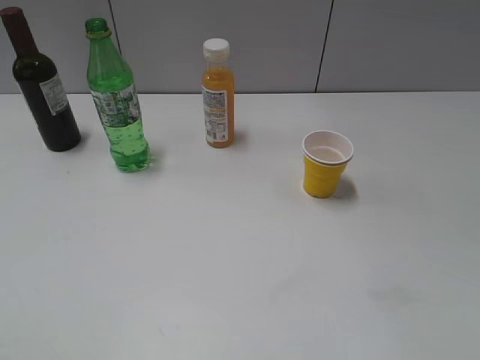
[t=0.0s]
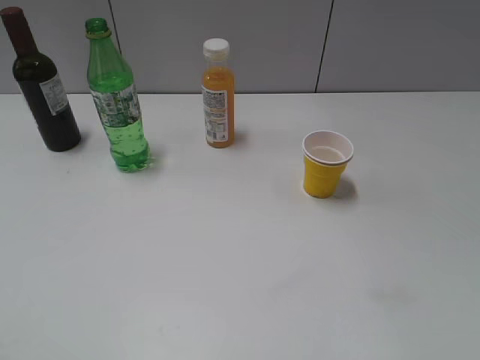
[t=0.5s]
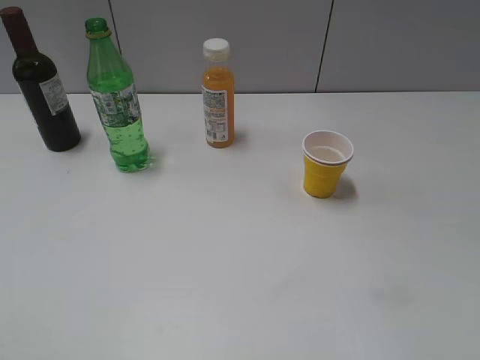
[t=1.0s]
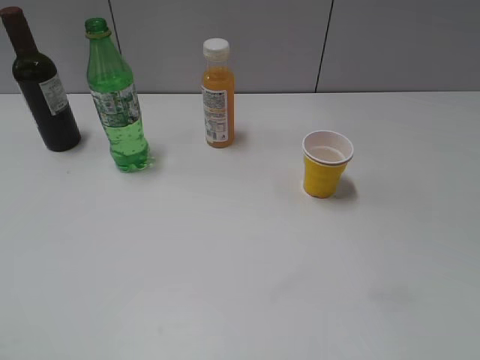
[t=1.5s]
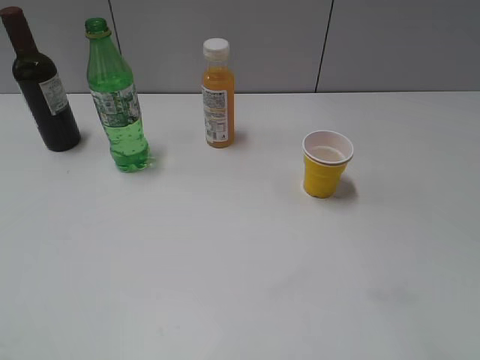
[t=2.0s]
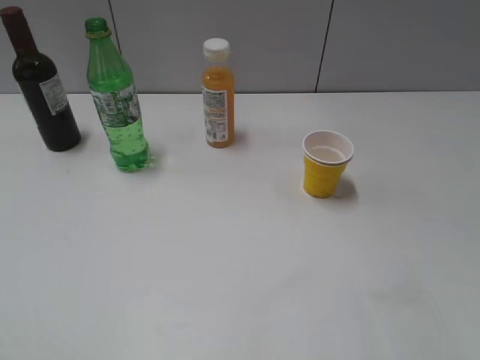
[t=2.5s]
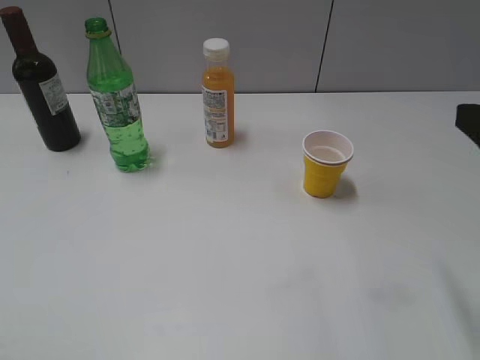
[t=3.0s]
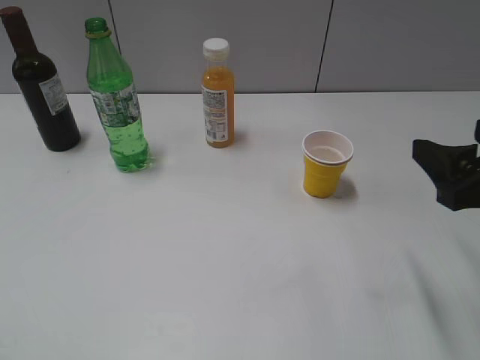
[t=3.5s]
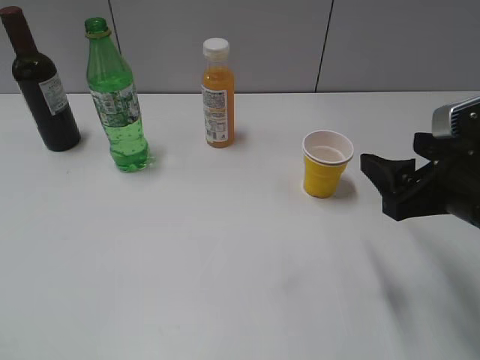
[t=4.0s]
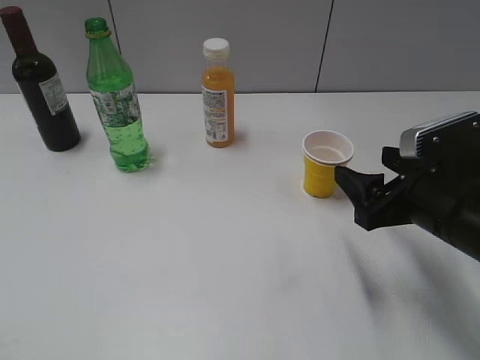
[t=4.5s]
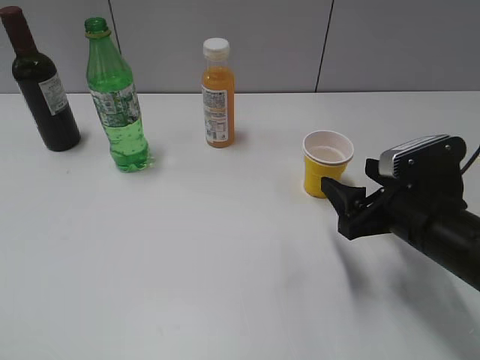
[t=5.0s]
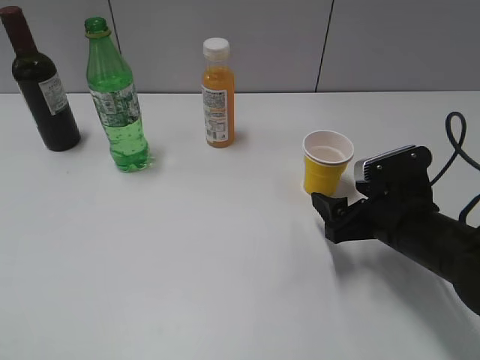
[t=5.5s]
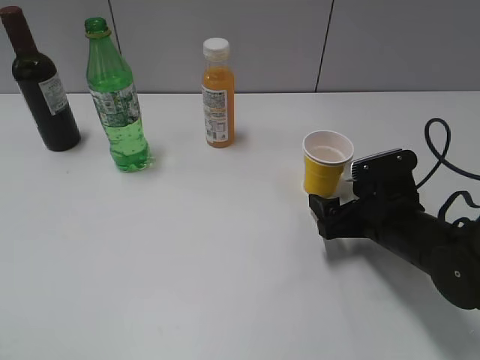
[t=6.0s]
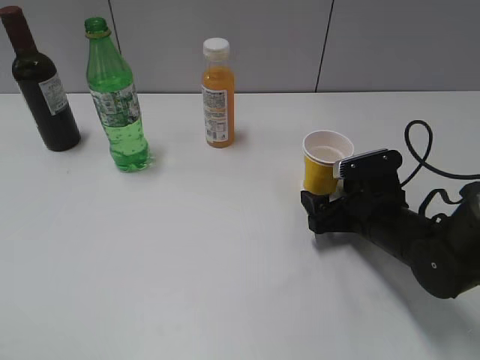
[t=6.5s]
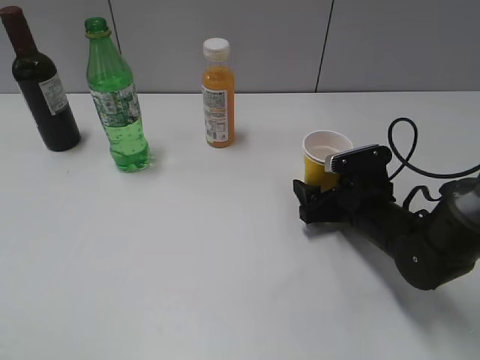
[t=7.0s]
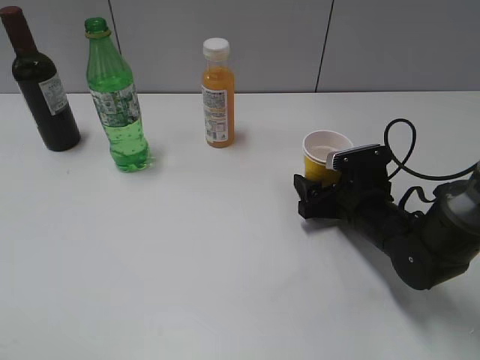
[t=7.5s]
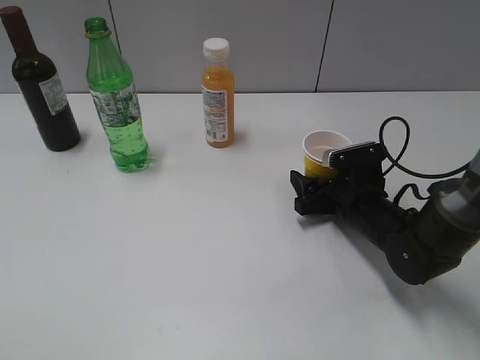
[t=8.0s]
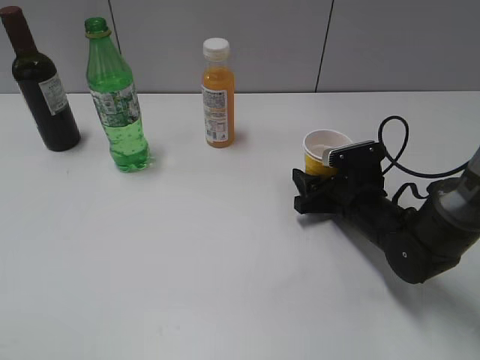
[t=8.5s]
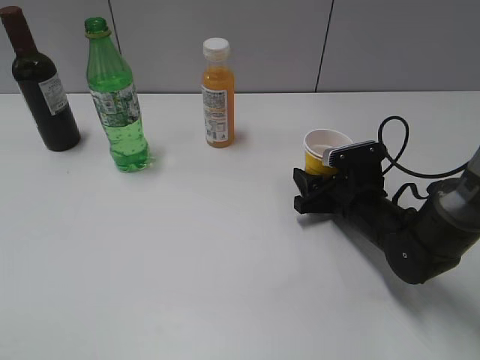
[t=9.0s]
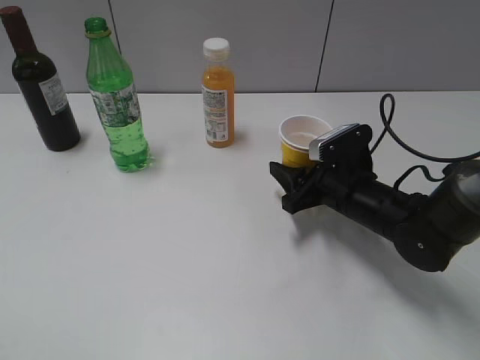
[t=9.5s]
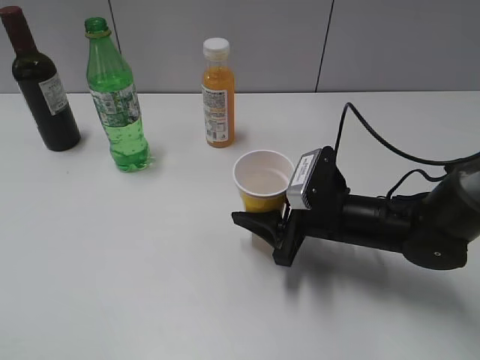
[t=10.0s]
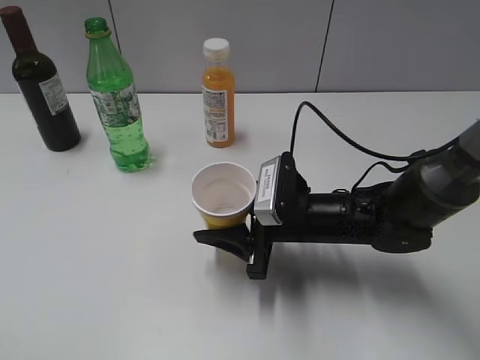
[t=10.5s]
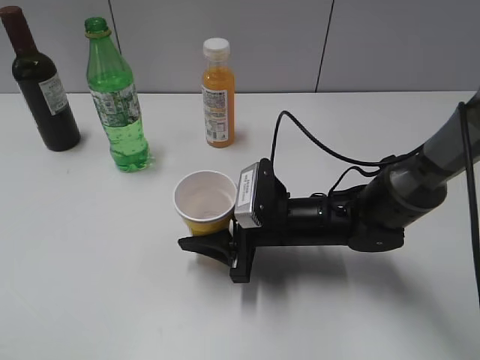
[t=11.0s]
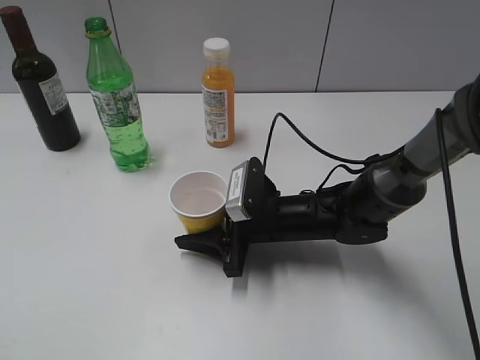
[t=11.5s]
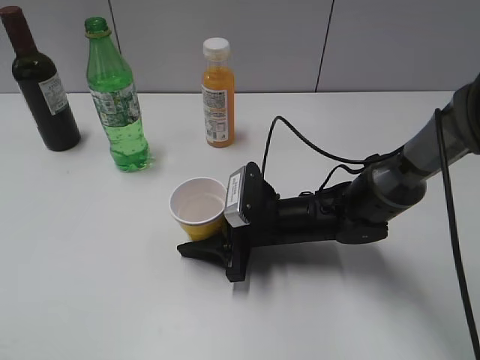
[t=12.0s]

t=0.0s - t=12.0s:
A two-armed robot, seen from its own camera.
Step, t=1.0s - t=9.0s: Grasp the yellow paper cup with right gripper.
t=2.0s - t=4.0s: The right gripper is displaced forward, downward and to the left by approximately 20 cm.
t=4.0s - t=6.0s: The right gripper is displaced downward and forward by about 15 cm.
t=6.0s - t=8.0s: The right gripper travels forward by approximately 5 cm, and closes its fingers.
t=8.0s - t=10.0s: The right gripper ends up about 5 cm from where it was, and closes up.
t=10.0s - t=12.0s: The right gripper shifts roughly 5 cm to the left.

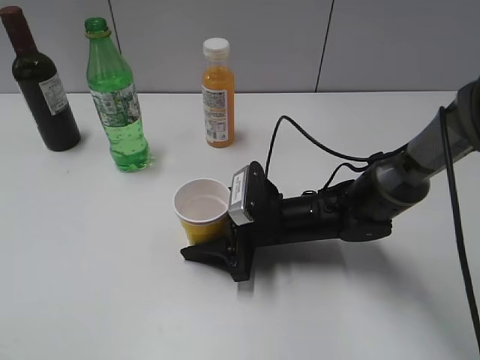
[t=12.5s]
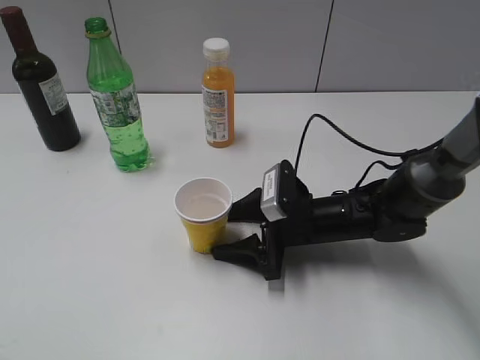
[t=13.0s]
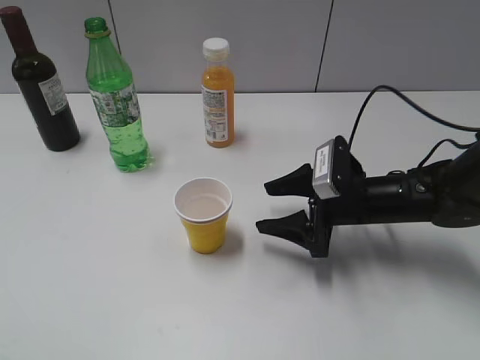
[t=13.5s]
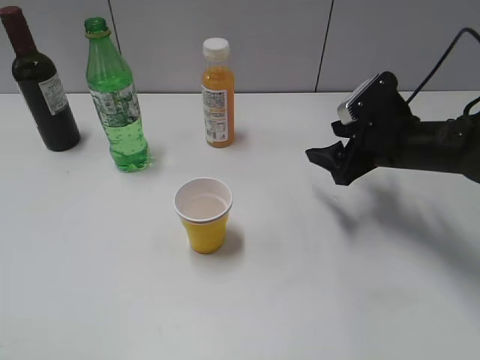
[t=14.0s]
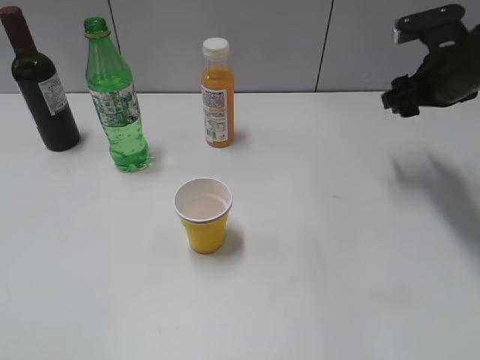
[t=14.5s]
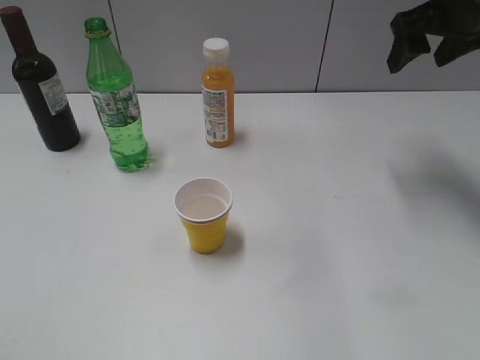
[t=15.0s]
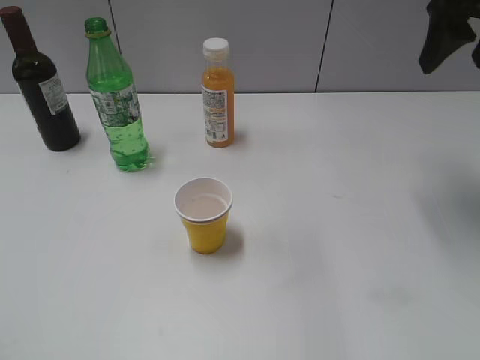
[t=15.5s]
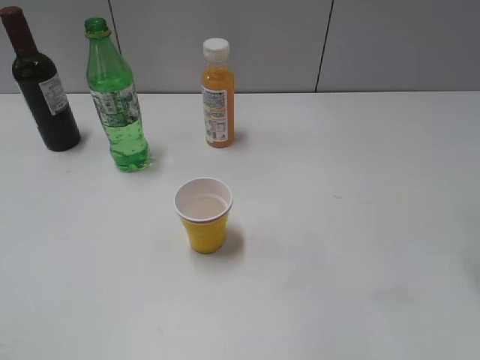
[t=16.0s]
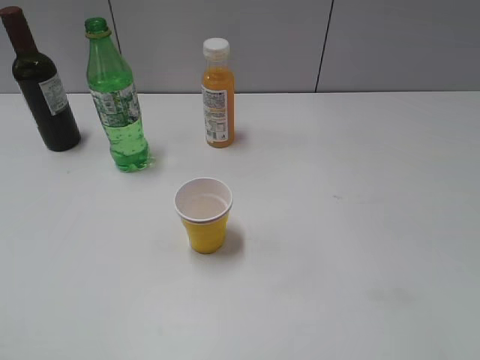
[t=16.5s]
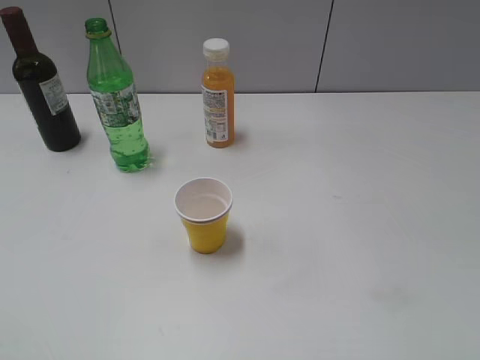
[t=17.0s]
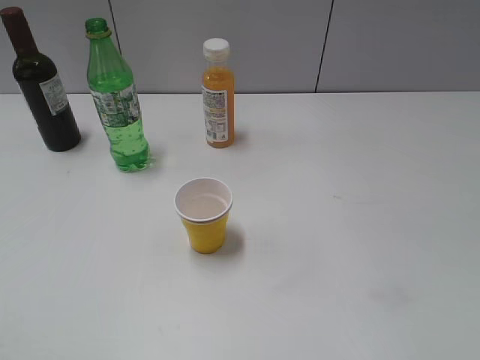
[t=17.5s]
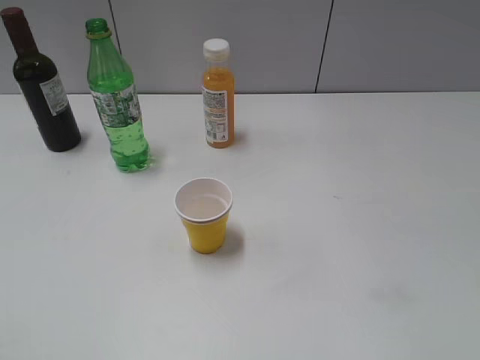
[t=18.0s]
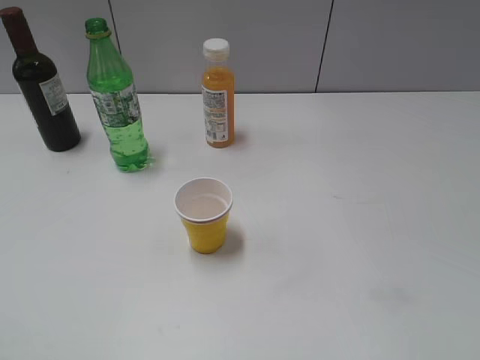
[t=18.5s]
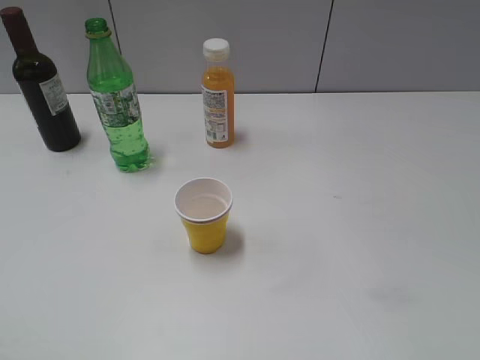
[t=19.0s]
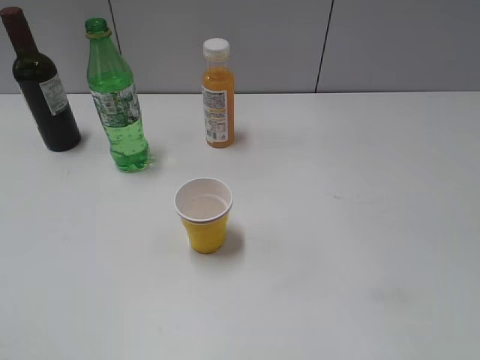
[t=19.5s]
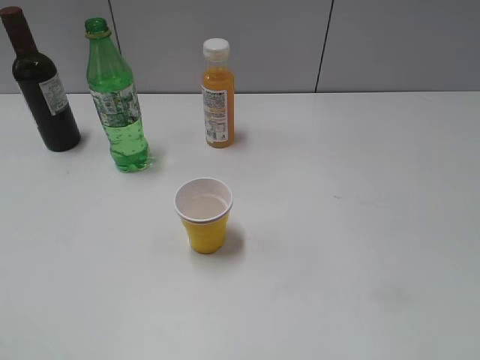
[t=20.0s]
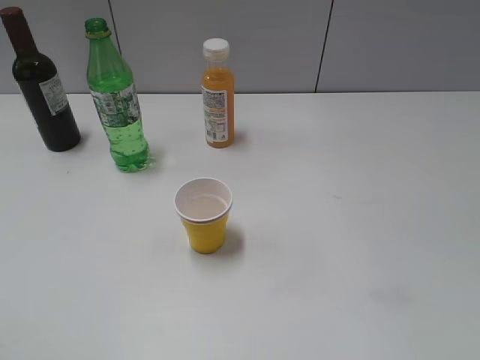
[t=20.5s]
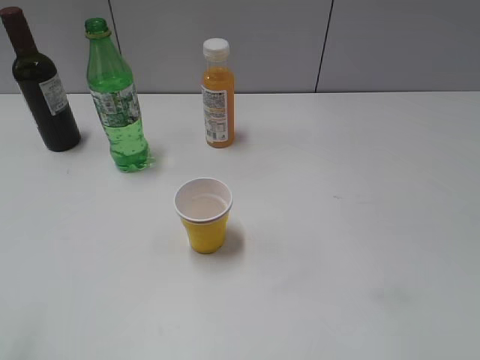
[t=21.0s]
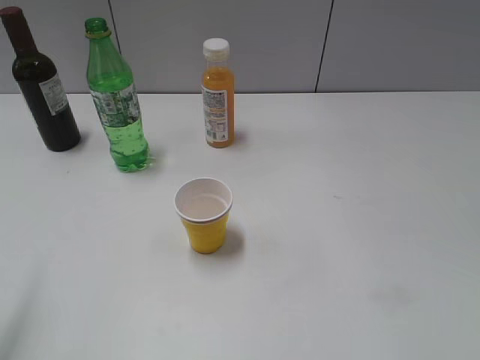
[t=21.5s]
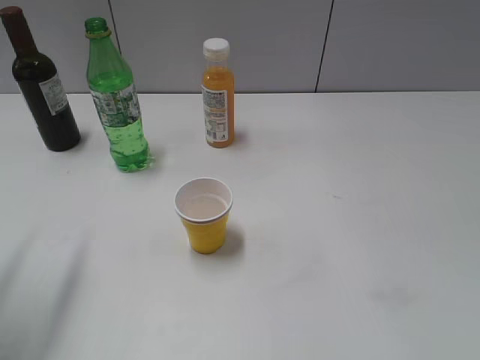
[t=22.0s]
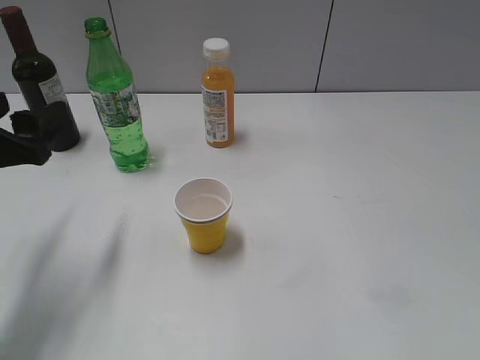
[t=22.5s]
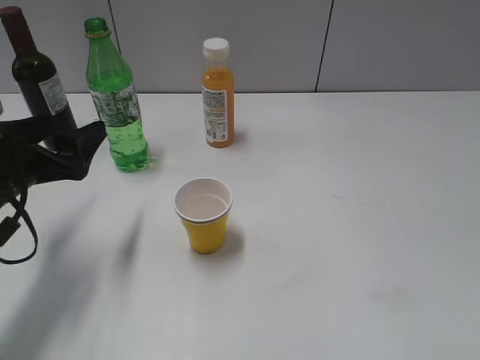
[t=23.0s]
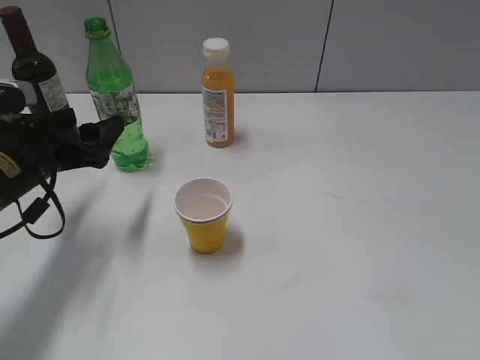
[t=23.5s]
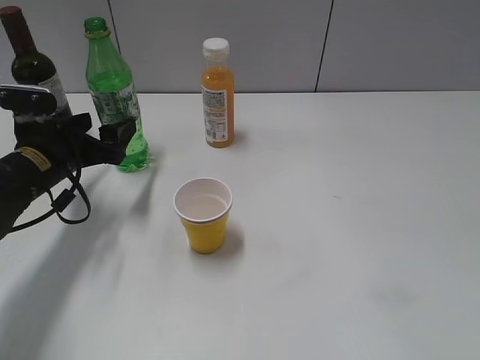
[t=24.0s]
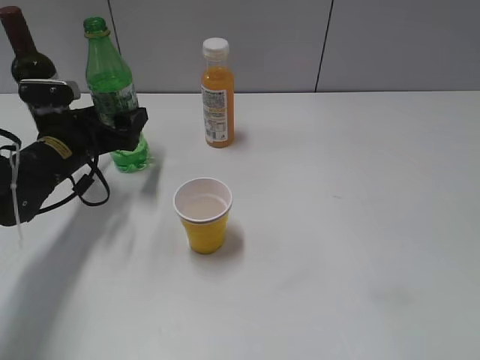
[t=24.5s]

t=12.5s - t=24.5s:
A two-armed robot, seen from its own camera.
t=12.5s - t=14.5s: The right gripper moves to the right, upward and forward, about 30 cm.
t=14.5s - t=16.5s: The right gripper goes about 25 cm backward.
t=20.5s - t=22.5s: The left gripper goes some 25 cm forward and downward.
t=22.5s - t=24.5s: The left gripper goes some 15 cm forward and downward.

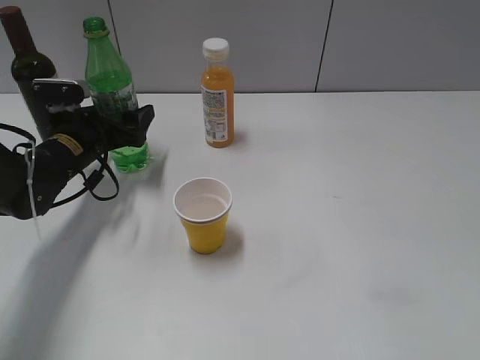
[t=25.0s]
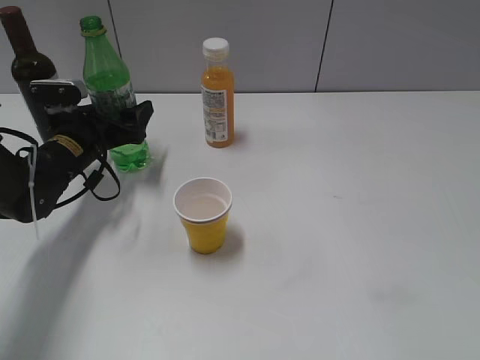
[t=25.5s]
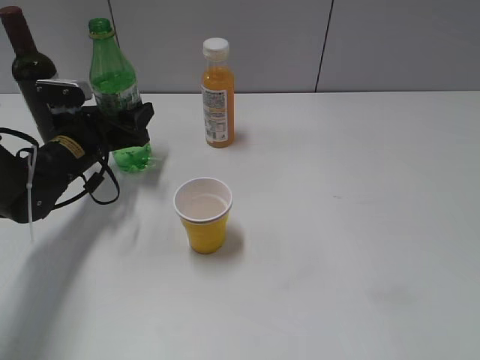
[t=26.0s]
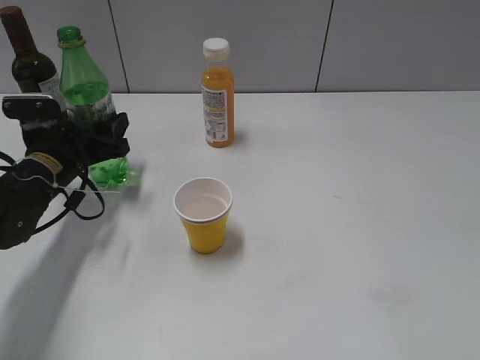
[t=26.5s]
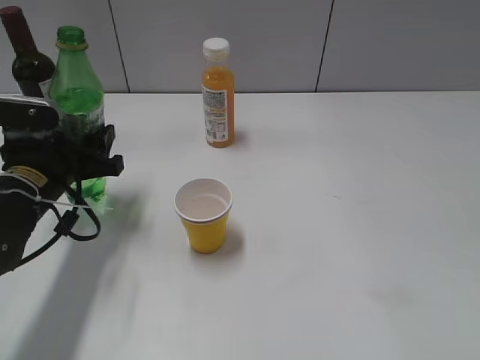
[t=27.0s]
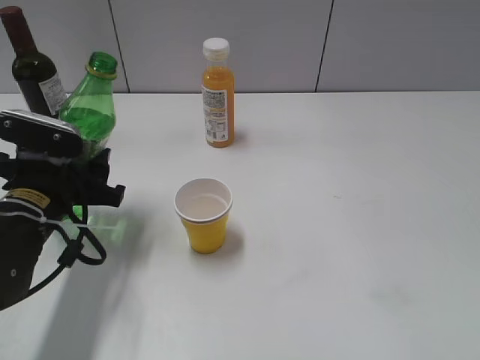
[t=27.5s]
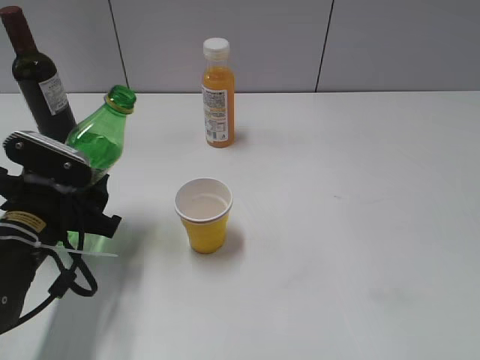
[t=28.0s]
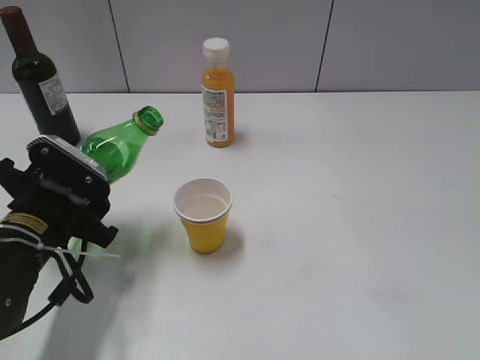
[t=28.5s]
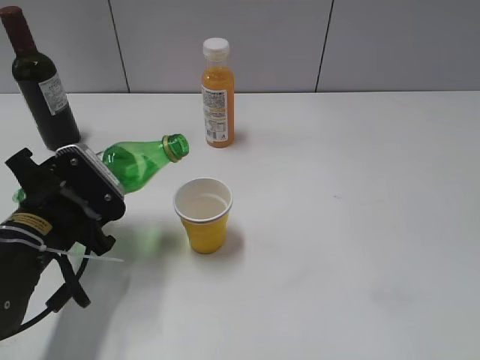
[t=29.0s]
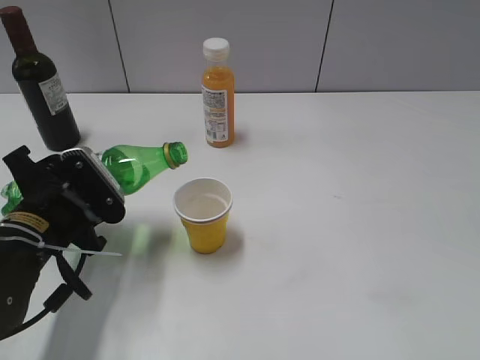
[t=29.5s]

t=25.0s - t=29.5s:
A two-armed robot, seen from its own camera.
t=25.0s - t=27.0s: The left gripper travels backward by roughly 10 cm, and closes up.
t=27.0s - t=29.5s: The left gripper goes some 5 cm backward.
